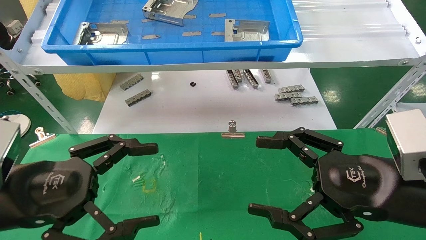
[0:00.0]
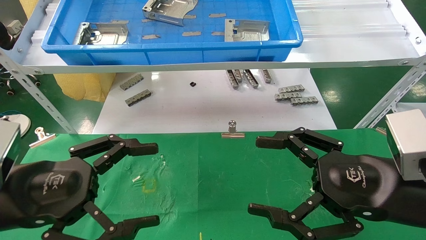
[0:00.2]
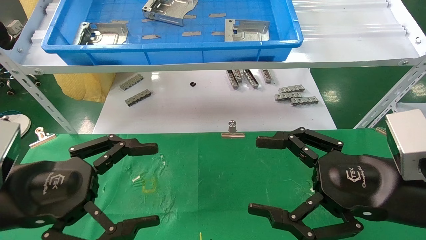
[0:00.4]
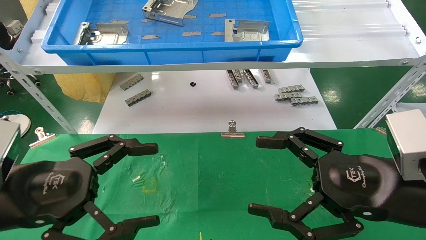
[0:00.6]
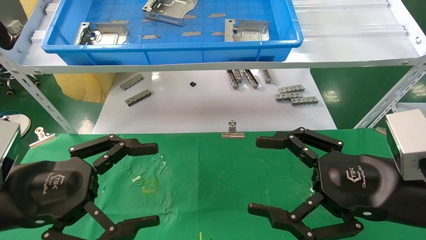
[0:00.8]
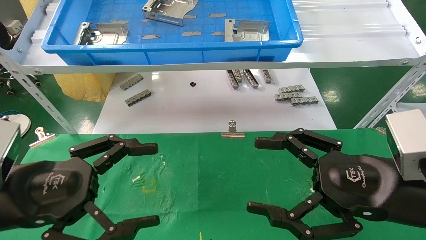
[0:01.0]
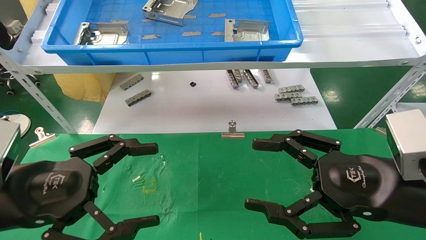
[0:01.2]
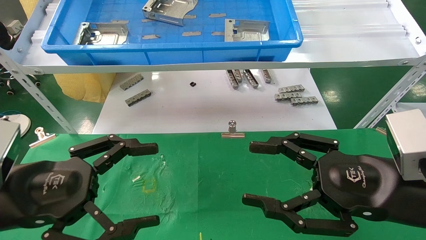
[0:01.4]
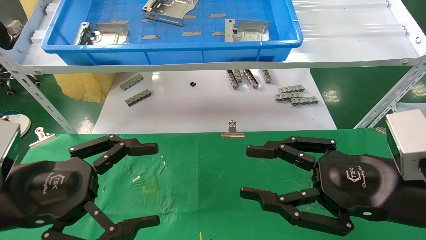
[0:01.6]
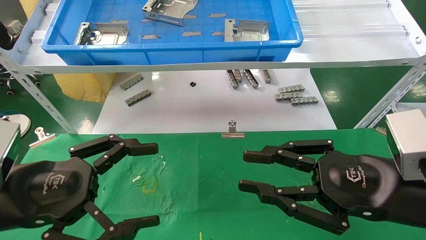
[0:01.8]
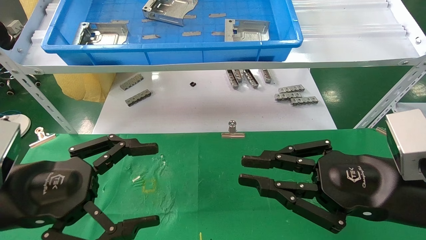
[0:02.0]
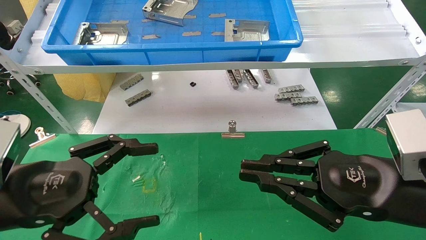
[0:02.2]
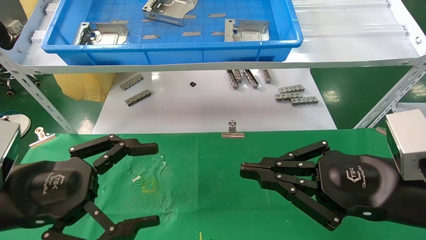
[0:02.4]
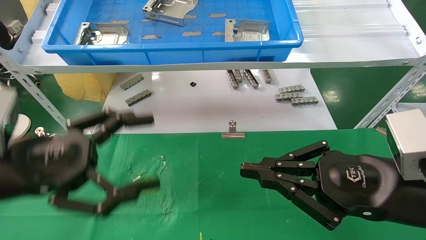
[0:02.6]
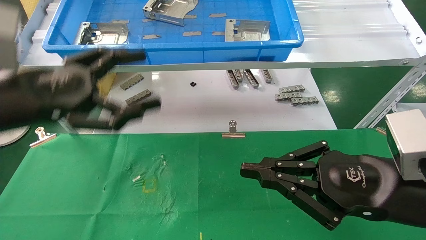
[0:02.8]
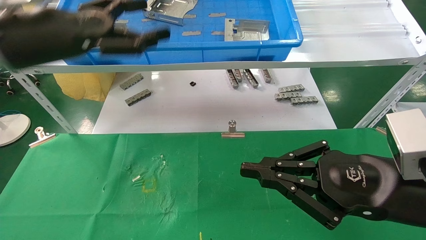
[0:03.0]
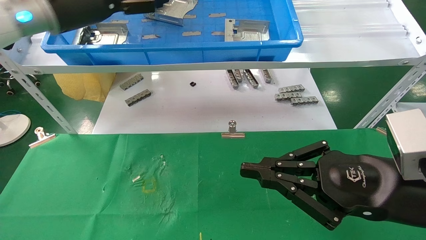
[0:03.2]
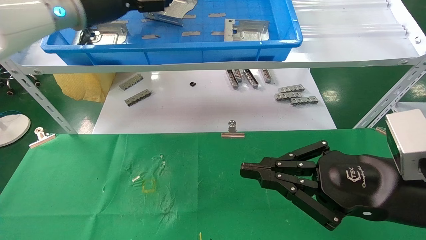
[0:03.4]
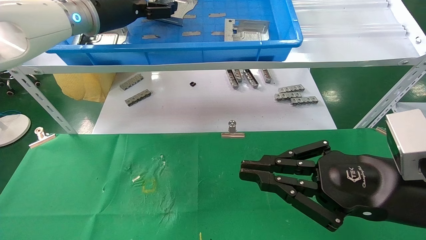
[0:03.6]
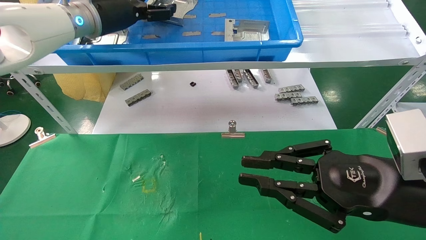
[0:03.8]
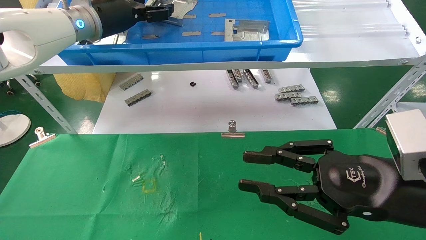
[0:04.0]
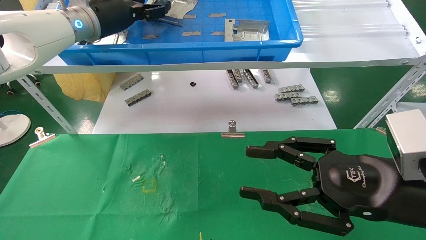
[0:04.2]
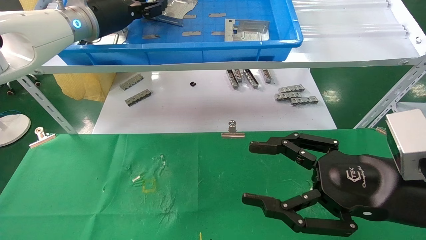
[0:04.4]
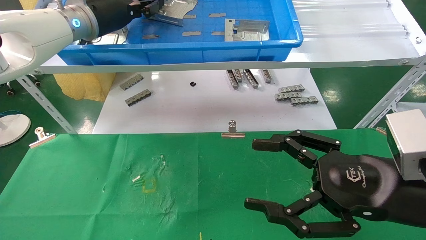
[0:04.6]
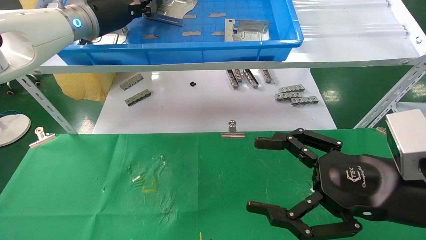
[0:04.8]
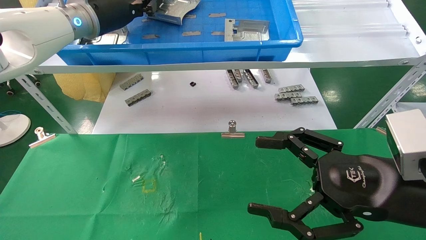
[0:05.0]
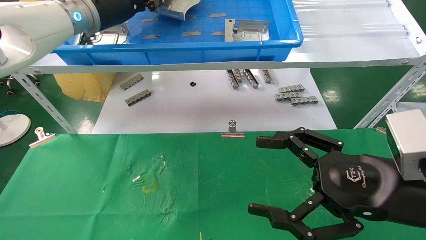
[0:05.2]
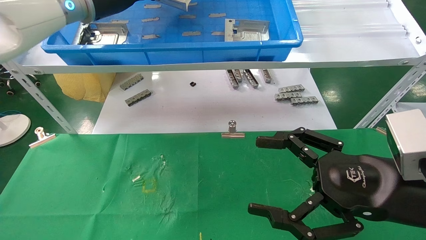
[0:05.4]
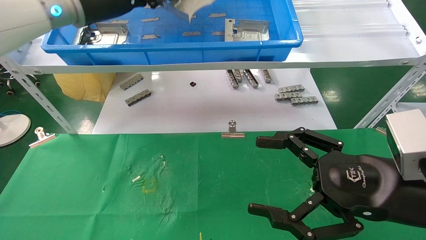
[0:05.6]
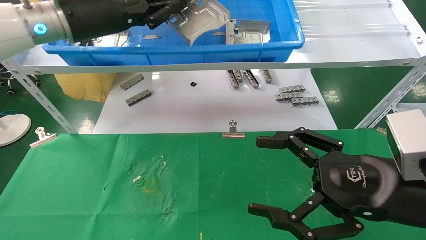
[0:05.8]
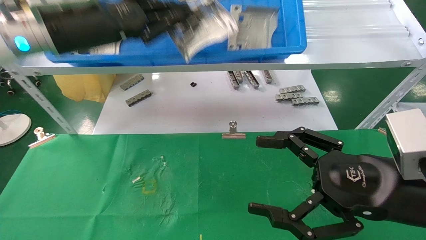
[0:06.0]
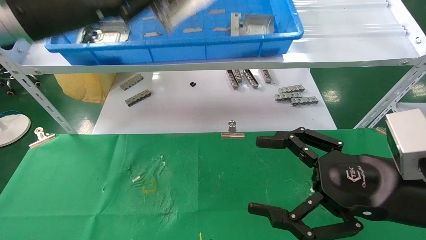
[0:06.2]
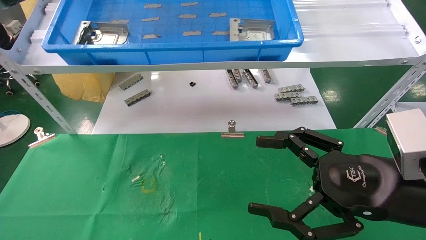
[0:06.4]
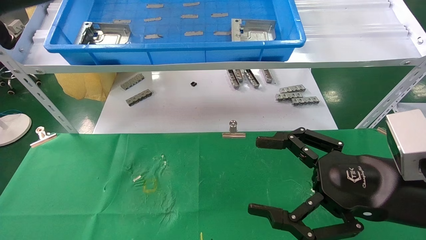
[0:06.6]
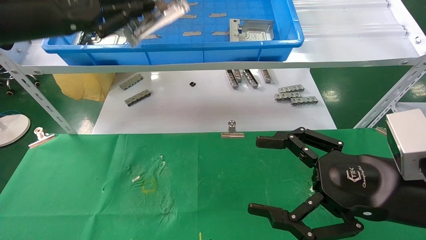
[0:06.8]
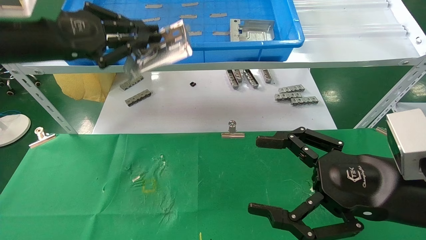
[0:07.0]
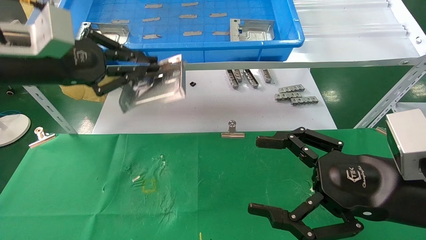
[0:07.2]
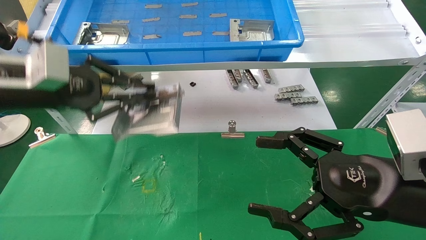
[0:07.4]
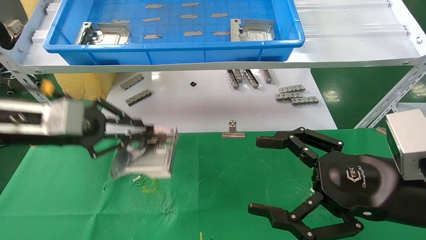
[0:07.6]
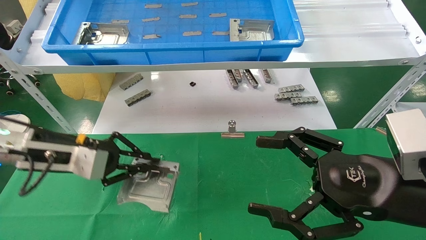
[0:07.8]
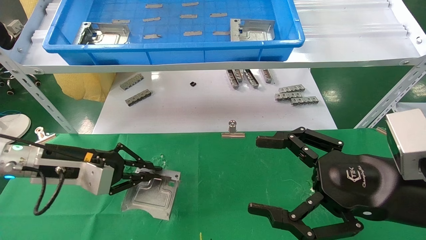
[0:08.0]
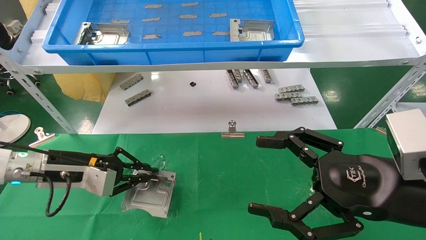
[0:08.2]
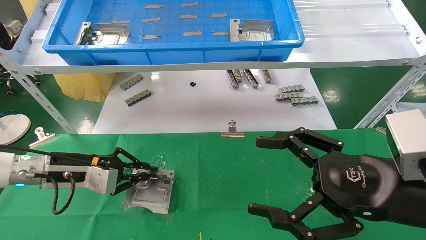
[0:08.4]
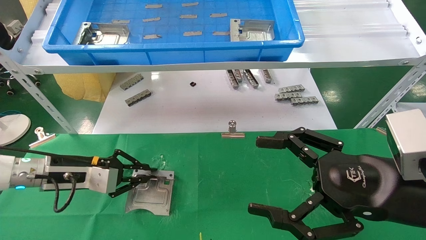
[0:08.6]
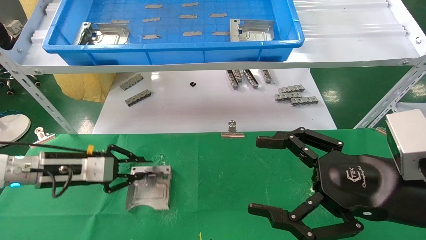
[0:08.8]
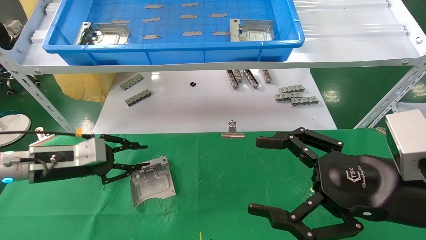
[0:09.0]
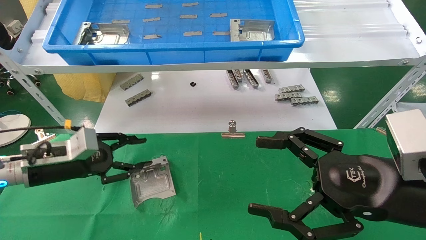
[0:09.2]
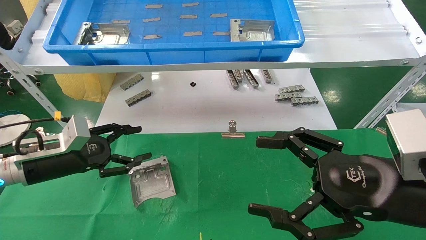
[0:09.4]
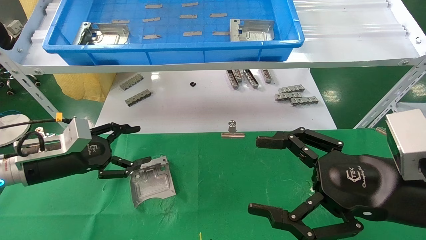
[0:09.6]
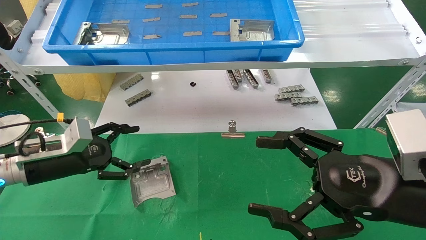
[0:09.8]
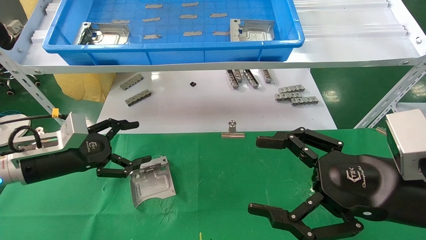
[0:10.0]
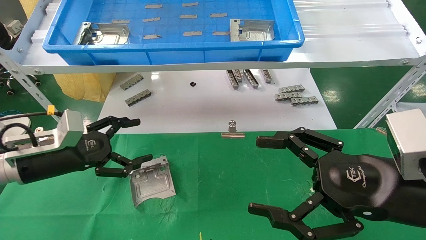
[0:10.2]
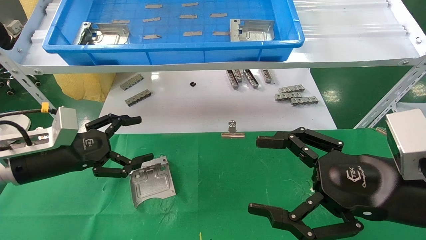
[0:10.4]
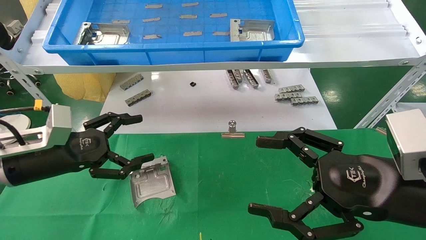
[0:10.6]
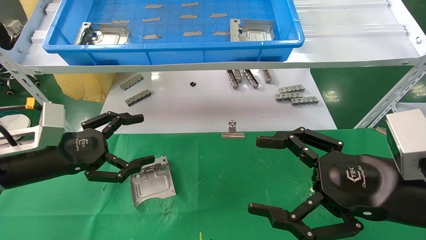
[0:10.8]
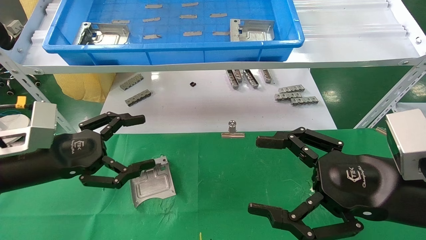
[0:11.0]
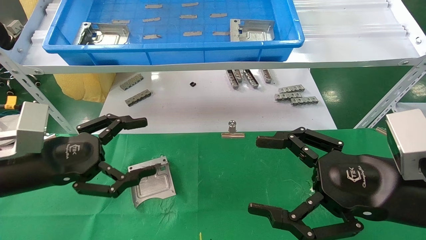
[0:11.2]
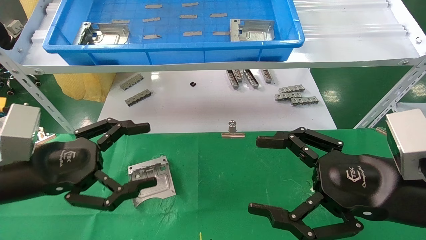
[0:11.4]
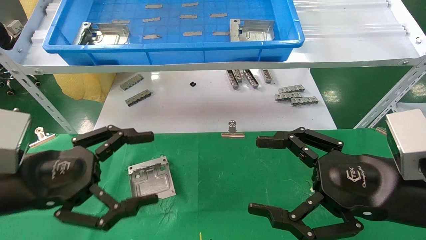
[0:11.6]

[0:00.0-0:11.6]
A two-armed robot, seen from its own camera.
Task of the whole recording: use the mechanical arm to pick up the parts and place them on the table.
Step, 0:02.8 to 0:04.8: Pick up the hard drive bracket from the feeding area.
Step, 0:05.0 to 0:09.0: Place the hard drive bracket into the box.
0:00.0 to 0:01.4: The two grippers keep their place.
0:01.4 to 0:02.8: The left gripper heads upward and forward, covering about 15 cm. Meanwhile the right gripper closes its fingers.
0:02.8 to 0:04.4: The left gripper heads forward and upward, covering roughly 20 cm, while the right gripper opens up.
0:04.4 to 0:05.8: The left gripper moves backward, roughly 5 cm, and closes up; the right gripper opens its fingers.
0:05.8 to 0:07.2: The left gripper travels to the left, backward and downward by approximately 10 cm.
0:07.2 to 0:08.8: The left gripper is displaced downward by approximately 20 cm.
0:08.8 to 0:10.2: The left gripper opens its fingers.
0:10.2 to 0:11.6: The left gripper heads backward, covering approximately 10 cm.

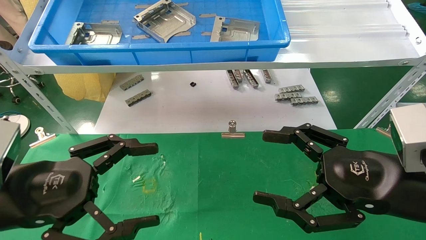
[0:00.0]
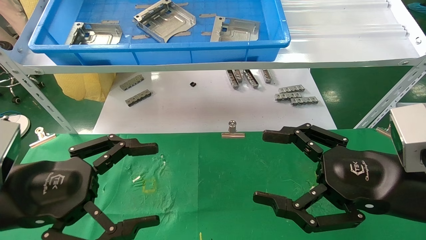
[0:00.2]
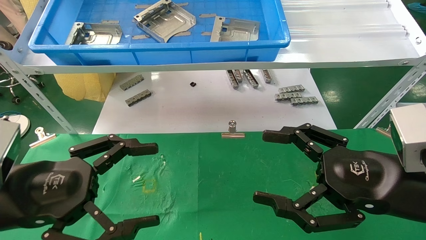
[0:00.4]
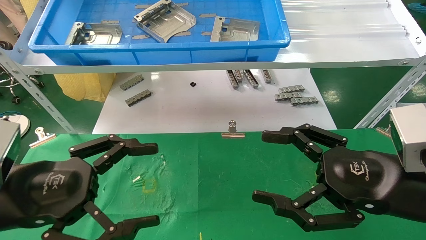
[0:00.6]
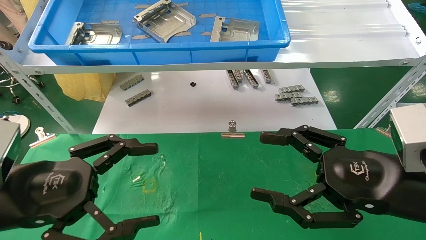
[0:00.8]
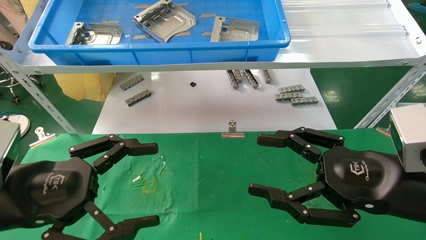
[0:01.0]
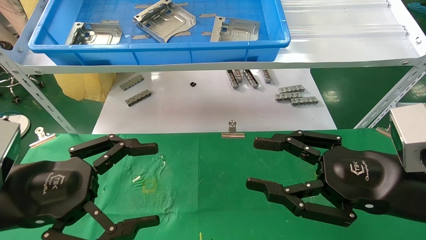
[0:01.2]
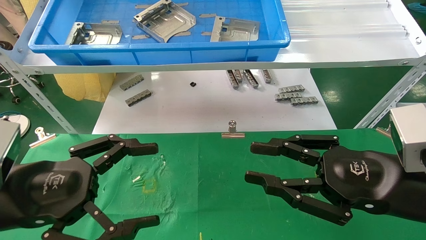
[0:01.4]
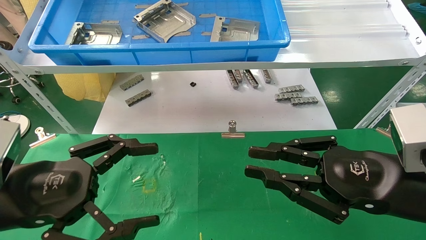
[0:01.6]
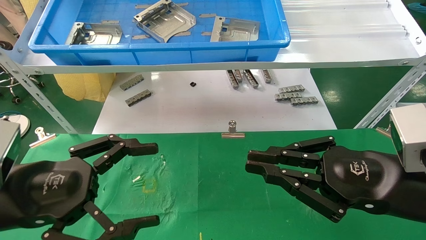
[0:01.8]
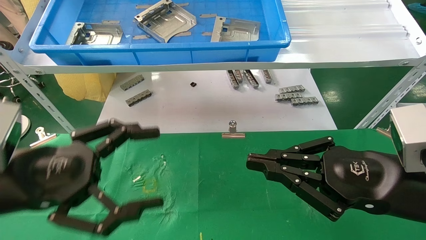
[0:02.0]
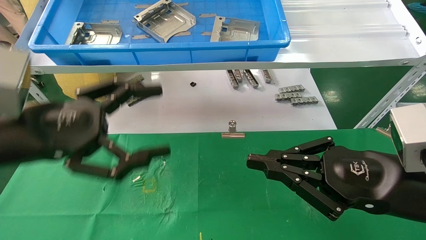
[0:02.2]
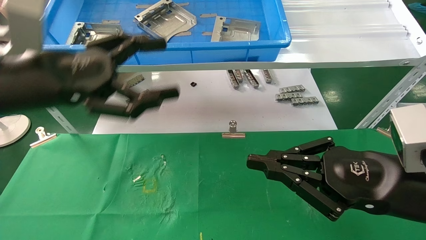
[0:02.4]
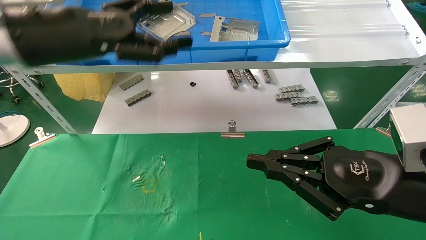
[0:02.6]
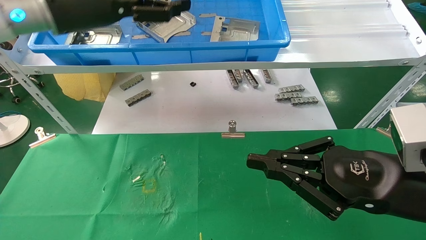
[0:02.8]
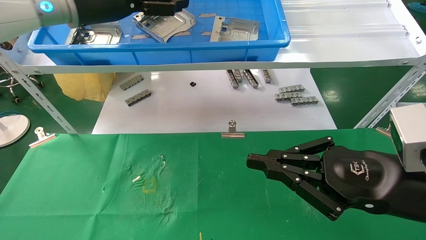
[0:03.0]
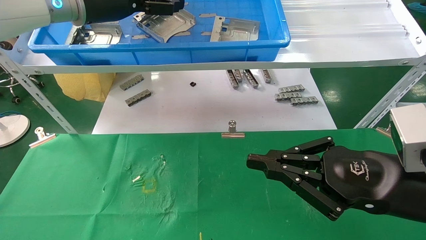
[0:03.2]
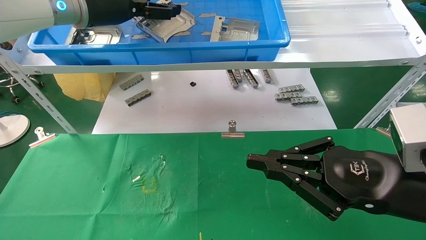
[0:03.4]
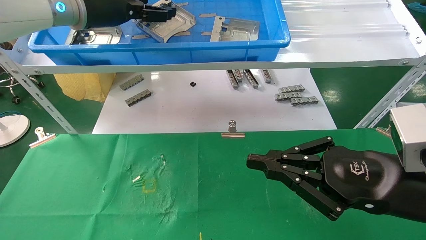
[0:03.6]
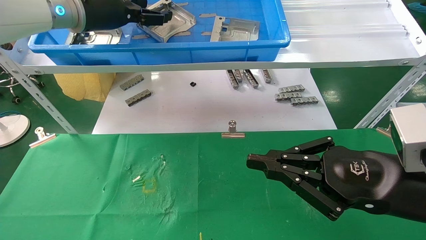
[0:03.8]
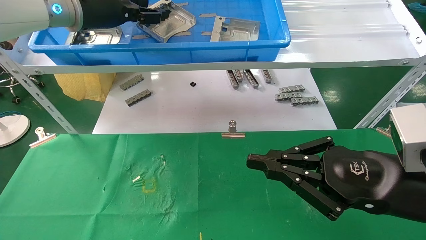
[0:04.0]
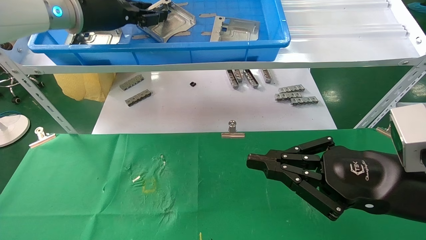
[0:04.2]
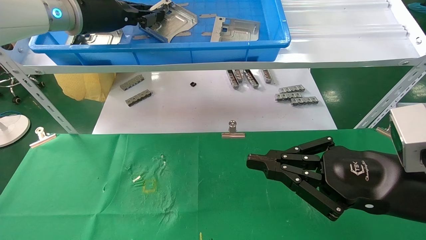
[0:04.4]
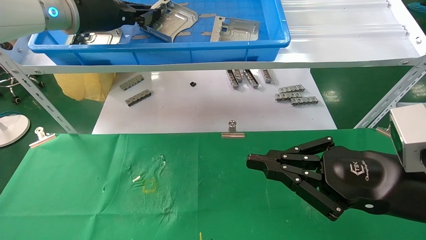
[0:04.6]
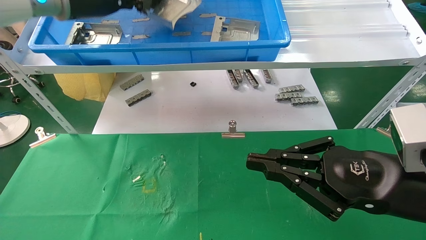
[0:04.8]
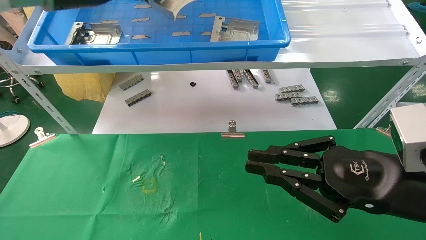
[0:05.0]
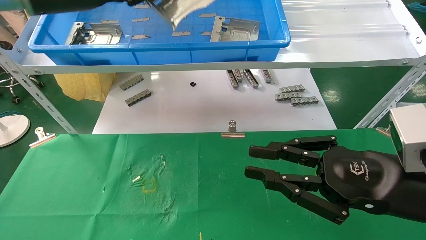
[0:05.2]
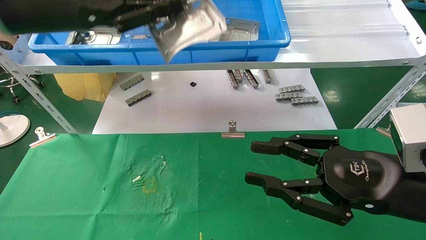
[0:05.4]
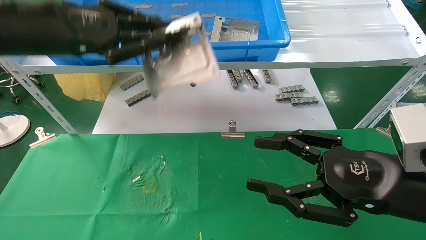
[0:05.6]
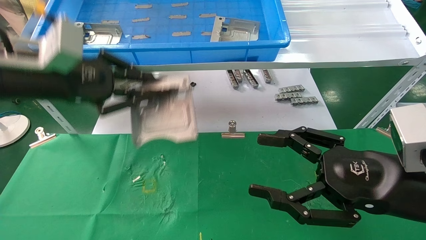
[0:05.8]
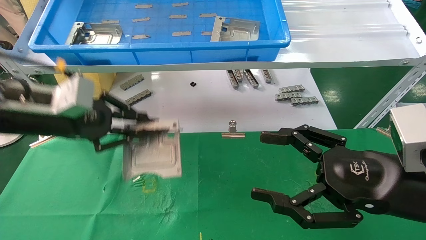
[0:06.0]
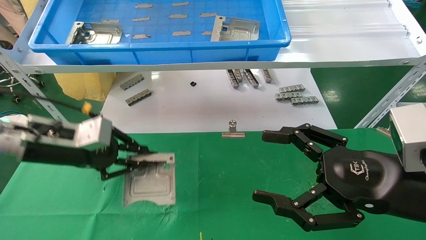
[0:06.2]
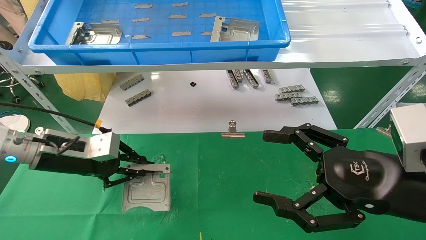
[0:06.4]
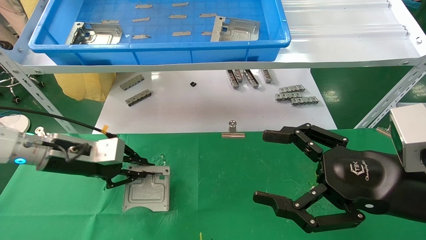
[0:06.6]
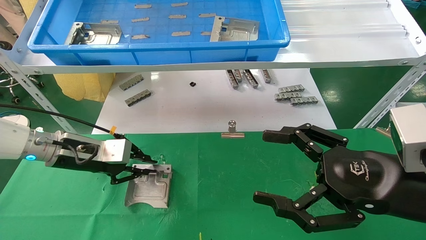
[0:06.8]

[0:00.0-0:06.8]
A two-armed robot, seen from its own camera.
Task of the whole recording: use the mechanical arm to pick up the parts and place them on the table.
Step, 0:01.4 to 0:04.8: Pick up the hard drive bracket from the feeding area.
0:00.0 to 0:01.4: The right gripper closes its fingers.
0:01.4 to 0:02.8: The left gripper is displaced upward and forward by approximately 25 cm. The right gripper closes up.
0:02.8 to 0:04.0: The left gripper travels forward by about 5 cm.
0:04.0 to 0:05.4: The left gripper moves backward, roughly 10 cm, and closes its fingers.
0:05.4 to 0:06.8: The right gripper opens its fingers; the left gripper is displaced downward by roughly 25 cm.
